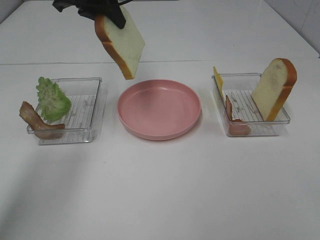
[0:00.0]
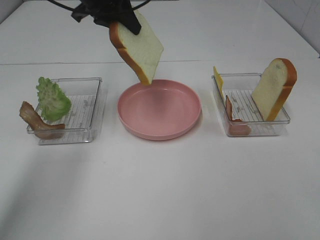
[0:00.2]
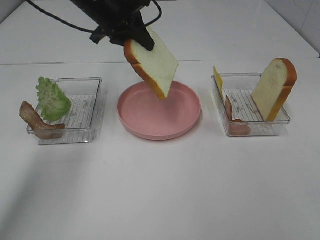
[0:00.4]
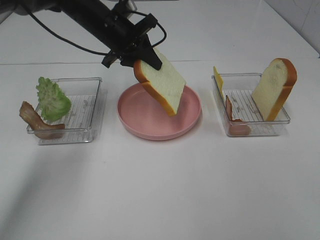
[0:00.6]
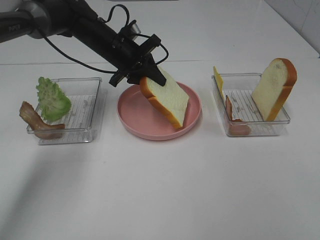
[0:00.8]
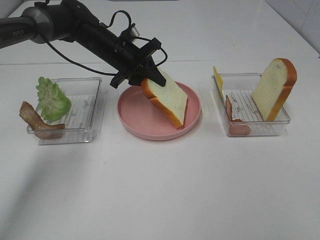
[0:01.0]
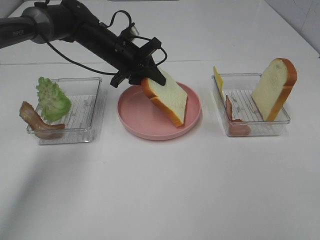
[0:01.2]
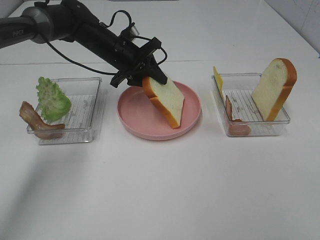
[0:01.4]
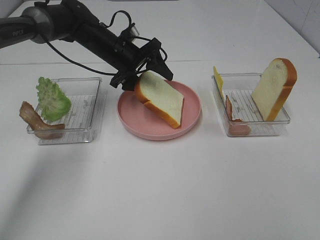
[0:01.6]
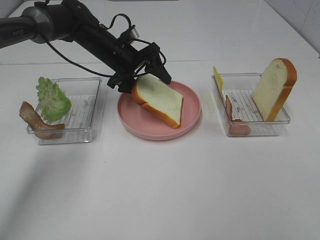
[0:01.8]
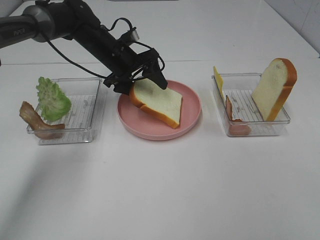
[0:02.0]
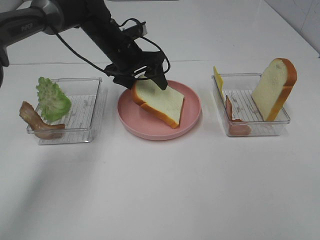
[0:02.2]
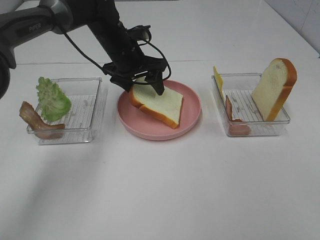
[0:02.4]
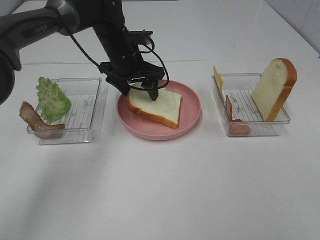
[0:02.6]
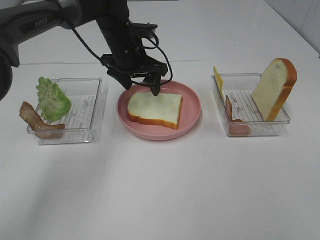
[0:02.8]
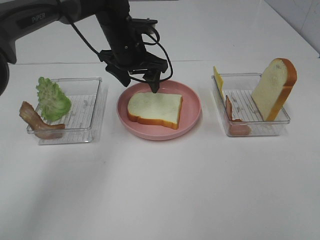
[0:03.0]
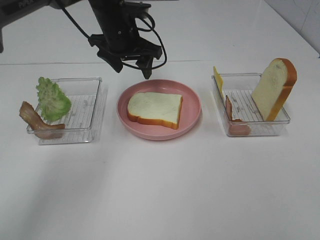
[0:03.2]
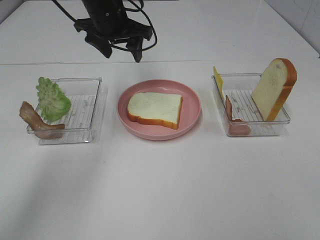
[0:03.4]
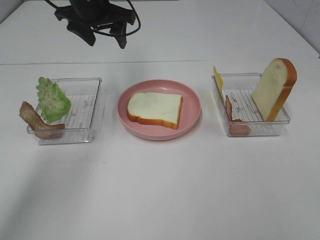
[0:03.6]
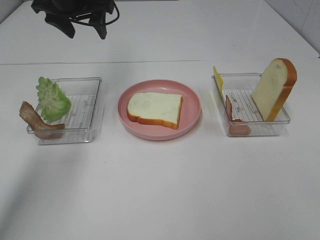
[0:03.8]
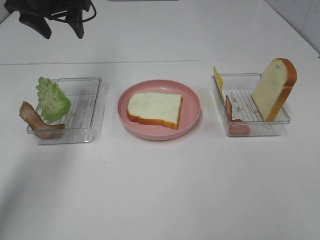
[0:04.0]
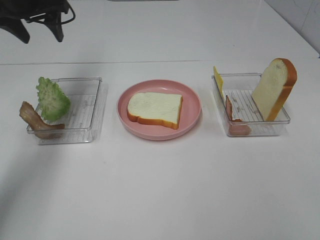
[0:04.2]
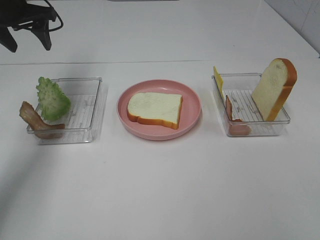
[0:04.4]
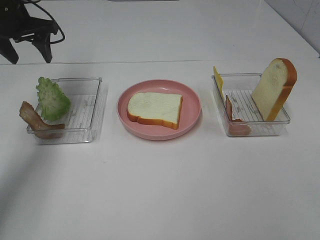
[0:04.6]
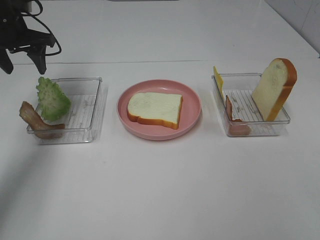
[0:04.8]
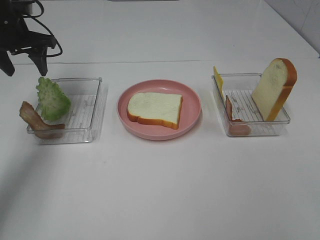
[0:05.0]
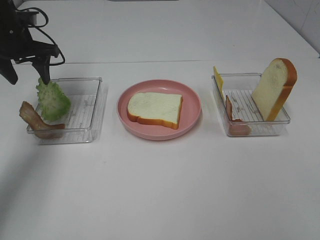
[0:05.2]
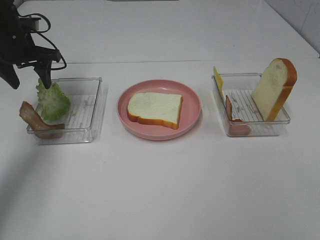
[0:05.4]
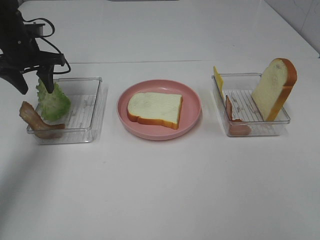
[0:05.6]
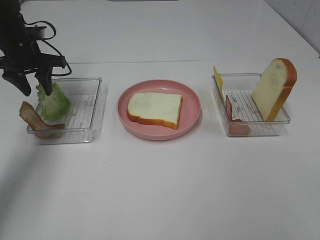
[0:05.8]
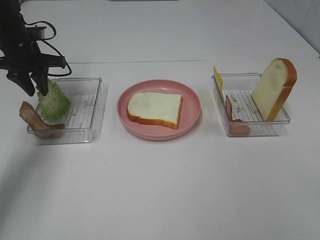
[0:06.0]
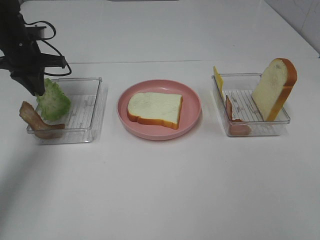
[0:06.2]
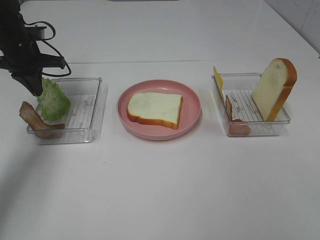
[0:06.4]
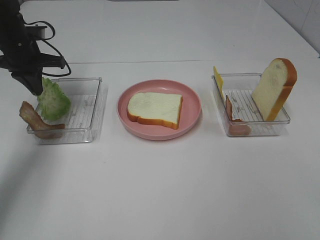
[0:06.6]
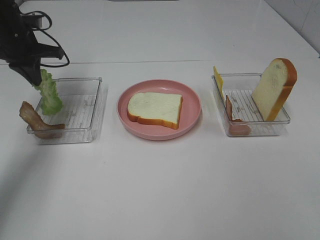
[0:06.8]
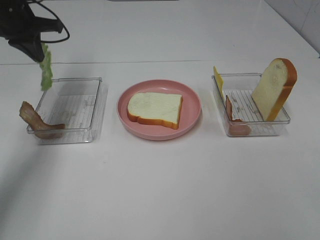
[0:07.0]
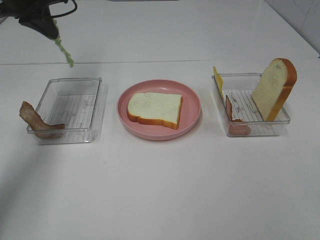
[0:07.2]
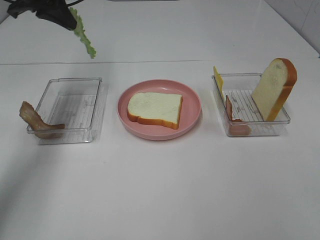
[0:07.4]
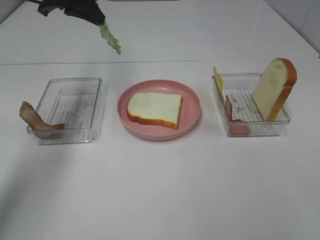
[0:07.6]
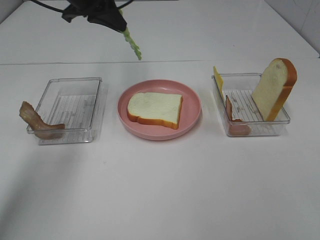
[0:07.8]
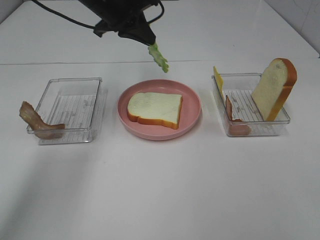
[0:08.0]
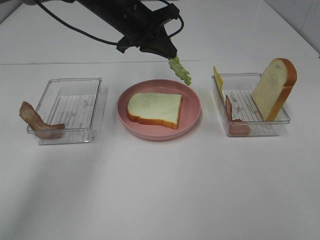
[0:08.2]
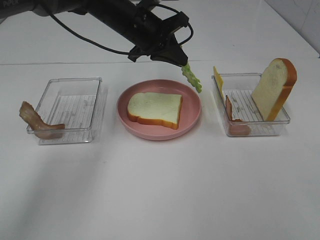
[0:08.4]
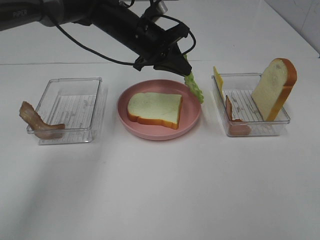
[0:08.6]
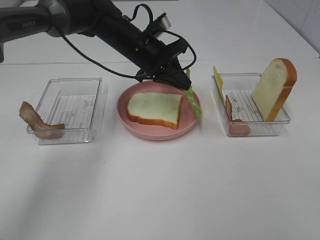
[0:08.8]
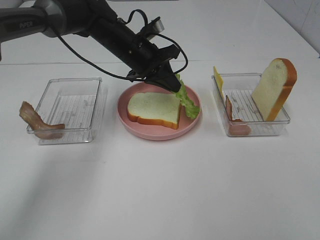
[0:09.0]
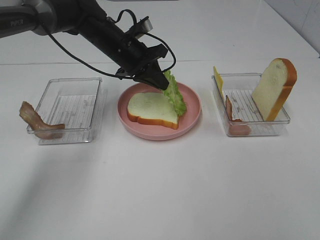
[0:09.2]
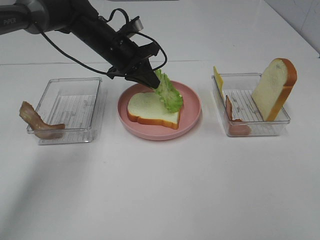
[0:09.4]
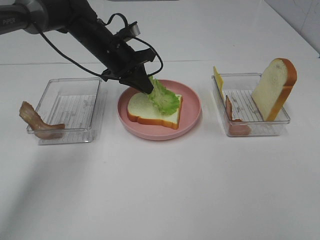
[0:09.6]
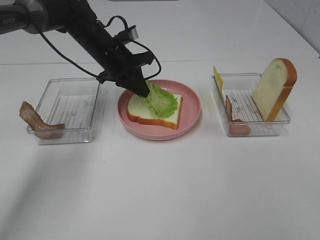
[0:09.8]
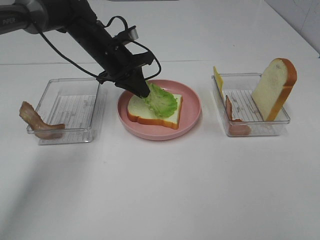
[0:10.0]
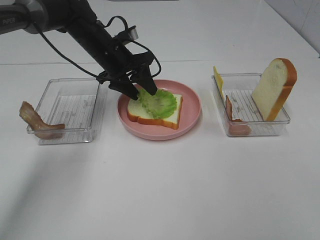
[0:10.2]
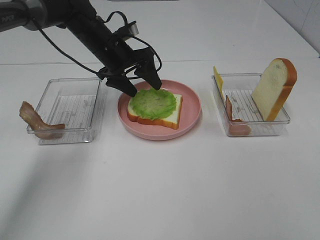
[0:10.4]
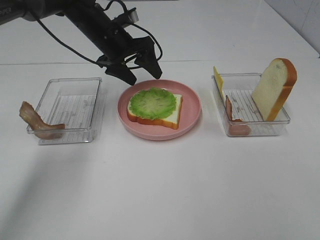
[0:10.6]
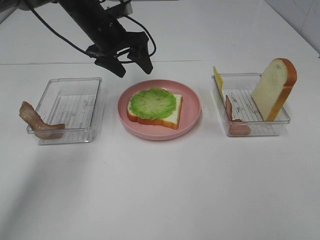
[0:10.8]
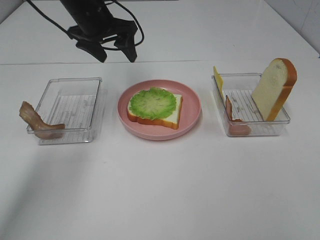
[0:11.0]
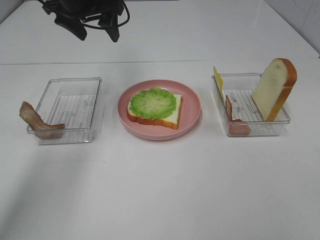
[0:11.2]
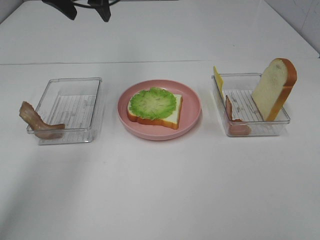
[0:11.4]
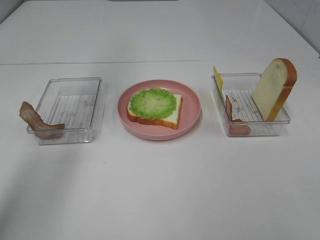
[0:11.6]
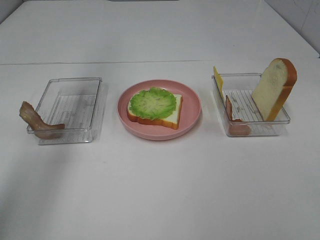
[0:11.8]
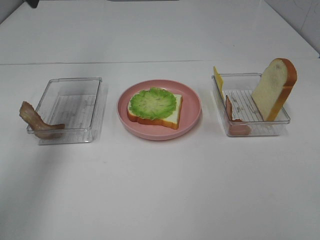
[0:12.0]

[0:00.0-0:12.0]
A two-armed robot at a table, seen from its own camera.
Task of the whole recording: Make sandwiches.
Step, 0.0 to 2.8 s: Left hand:place the bread slice on the plate.
Step, 3.0 to 6.8 s: Left hand:grab the lettuce slice.
Step, 7.0 to 10.8 s: Left hand:place the lettuce slice on the bread slice.
0.0 to 1.6 s: The left gripper travels downward by approximately 15 cm, and opens.
1.6 to 3.0 s: The left gripper ends up about 5 cm from where it was.
3.0 to 4.4 s: The left gripper goes some 20 cm to the left.
4.4 to 6.0 s: The left gripper is displaced downward by some 10 cm, and closes up.
6.0 to 7.6 s: The left gripper goes about 15 cm upward and to the right.
7.6 to 9.0 s: The left gripper shifts about 20 cm downward and to the right.
9.0 to 10.4 s: The left gripper moves approximately 5 cm, and opens up.
10.4 to 12.0 s: The left gripper is displaced upward and to the left by about 25 cm.

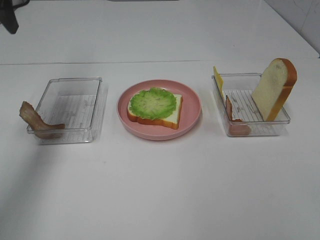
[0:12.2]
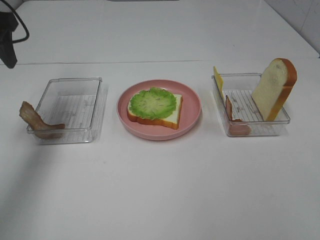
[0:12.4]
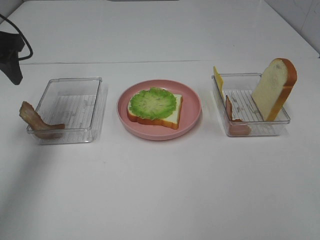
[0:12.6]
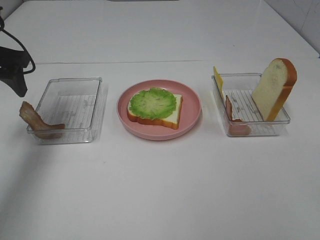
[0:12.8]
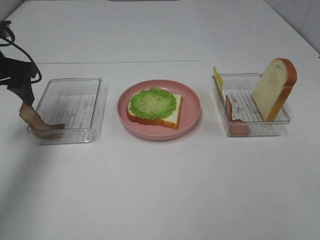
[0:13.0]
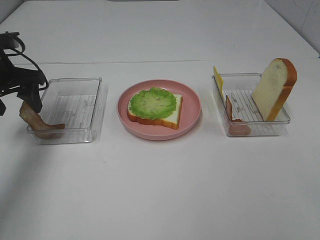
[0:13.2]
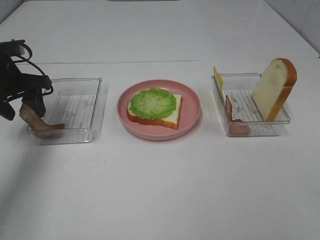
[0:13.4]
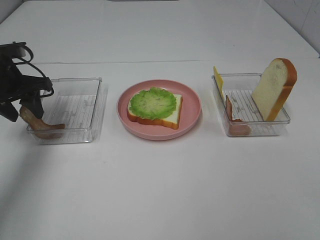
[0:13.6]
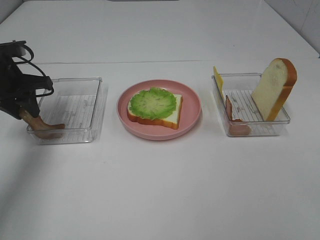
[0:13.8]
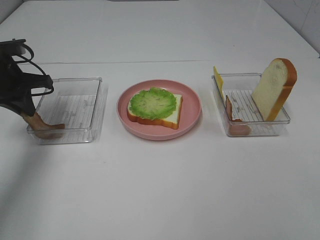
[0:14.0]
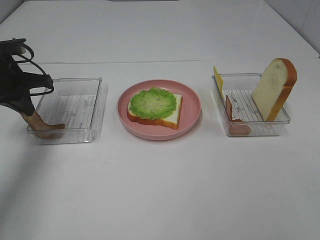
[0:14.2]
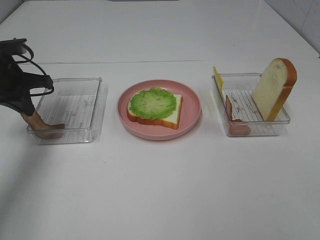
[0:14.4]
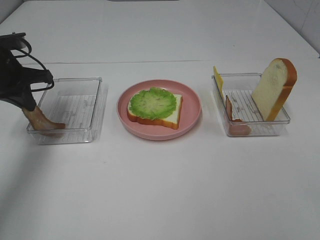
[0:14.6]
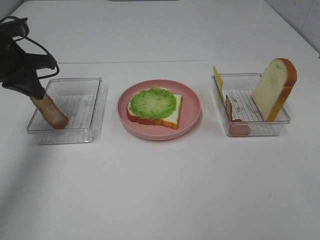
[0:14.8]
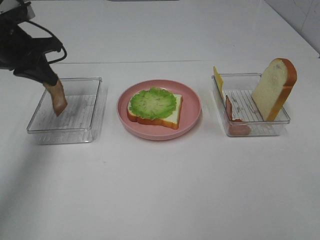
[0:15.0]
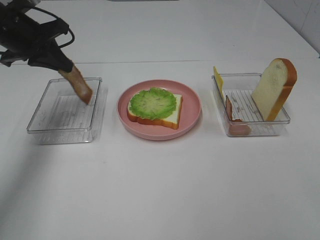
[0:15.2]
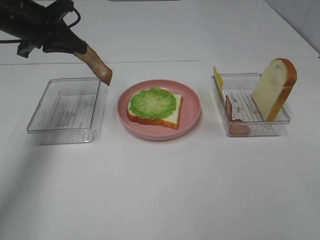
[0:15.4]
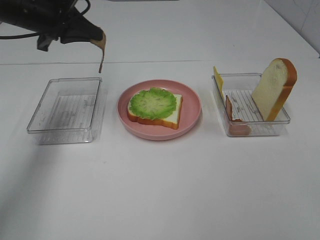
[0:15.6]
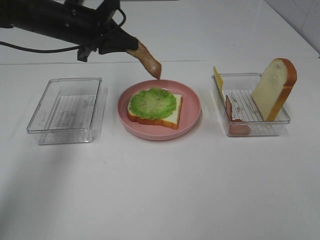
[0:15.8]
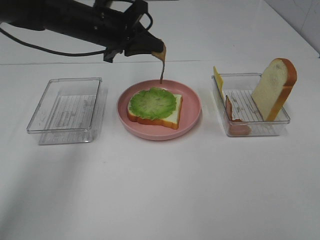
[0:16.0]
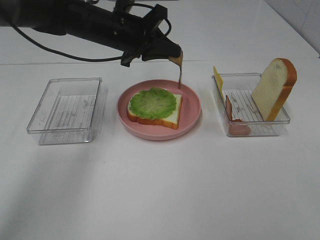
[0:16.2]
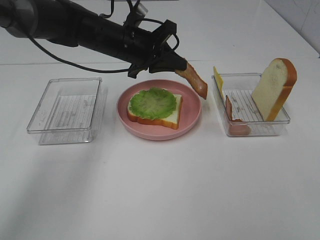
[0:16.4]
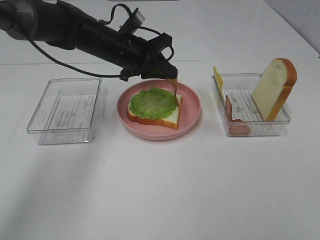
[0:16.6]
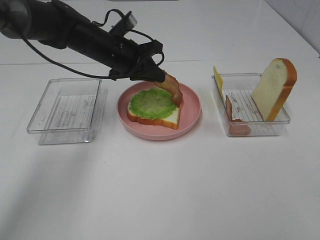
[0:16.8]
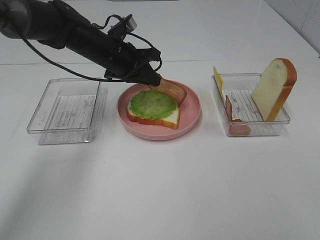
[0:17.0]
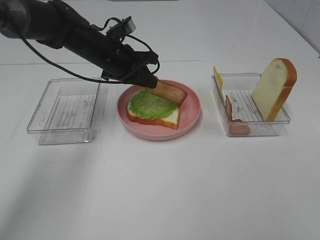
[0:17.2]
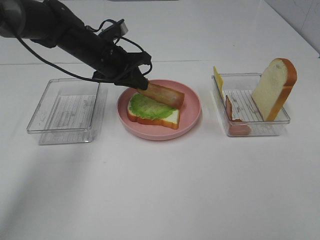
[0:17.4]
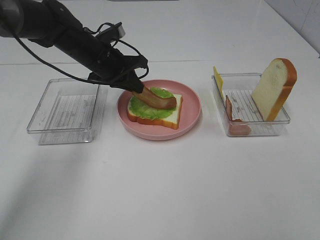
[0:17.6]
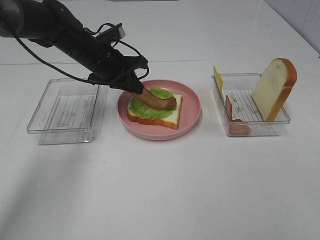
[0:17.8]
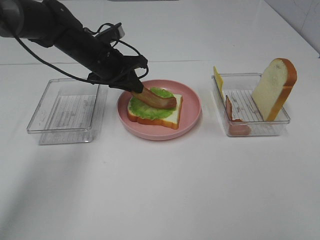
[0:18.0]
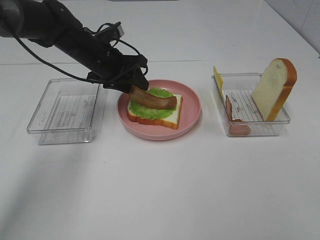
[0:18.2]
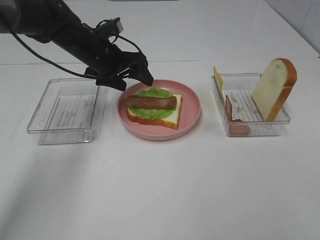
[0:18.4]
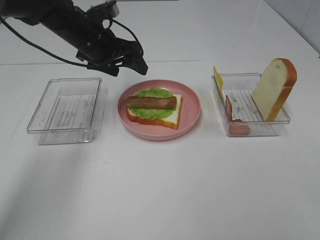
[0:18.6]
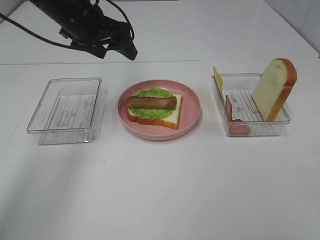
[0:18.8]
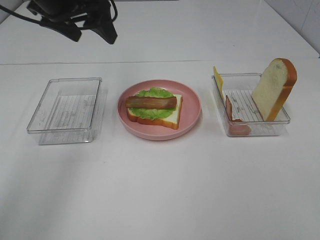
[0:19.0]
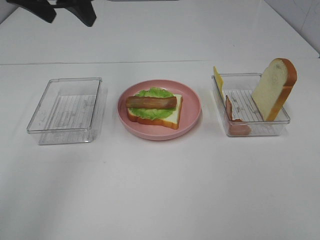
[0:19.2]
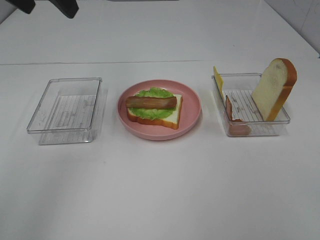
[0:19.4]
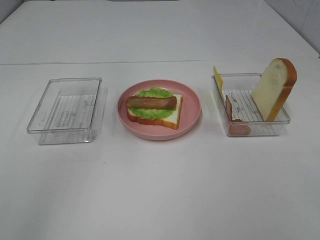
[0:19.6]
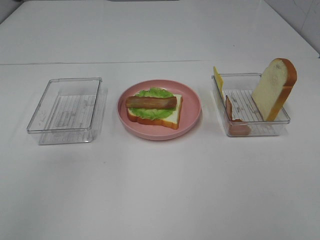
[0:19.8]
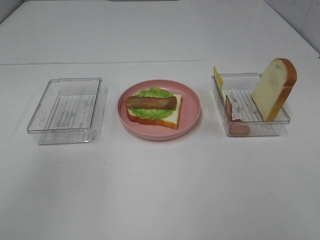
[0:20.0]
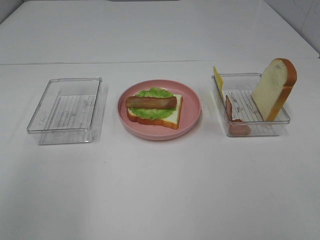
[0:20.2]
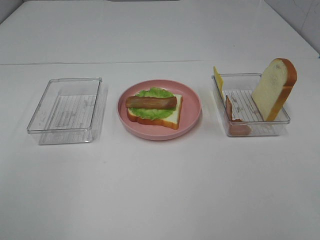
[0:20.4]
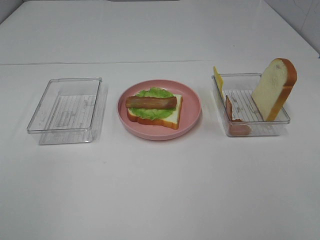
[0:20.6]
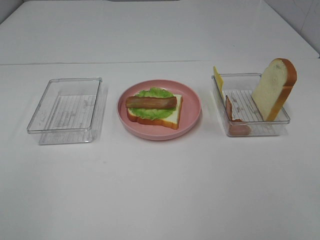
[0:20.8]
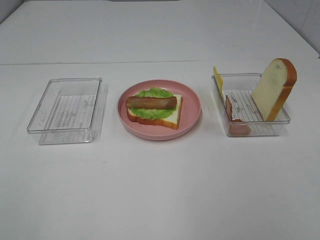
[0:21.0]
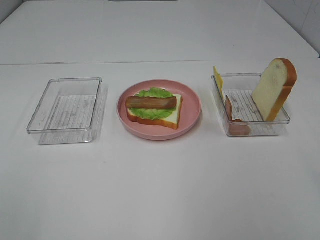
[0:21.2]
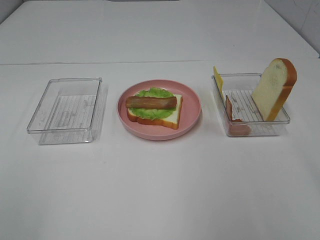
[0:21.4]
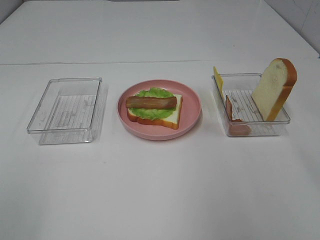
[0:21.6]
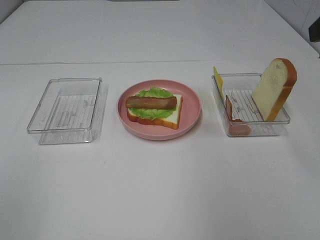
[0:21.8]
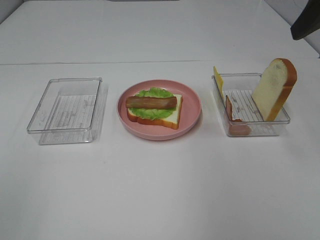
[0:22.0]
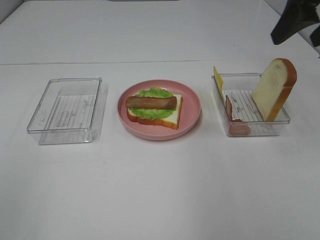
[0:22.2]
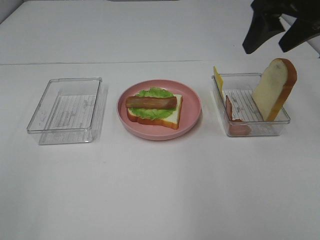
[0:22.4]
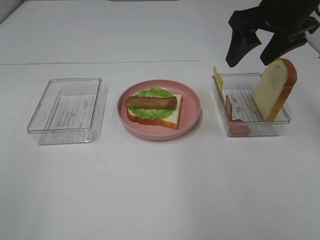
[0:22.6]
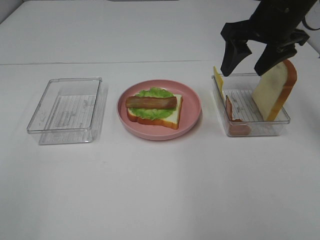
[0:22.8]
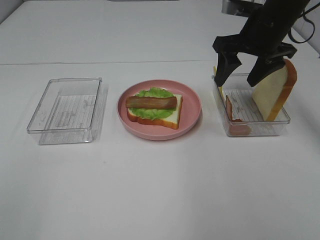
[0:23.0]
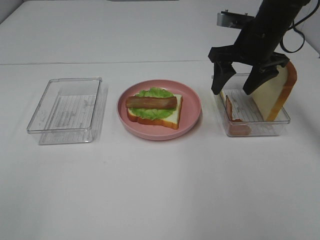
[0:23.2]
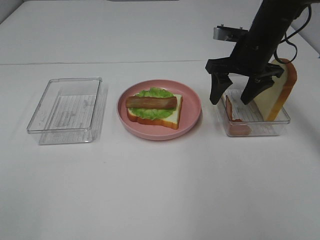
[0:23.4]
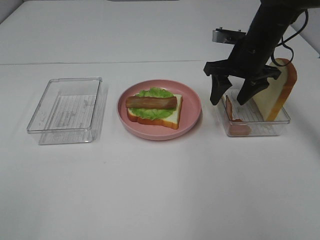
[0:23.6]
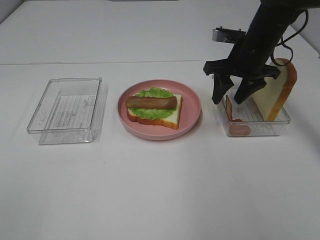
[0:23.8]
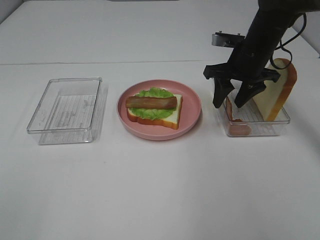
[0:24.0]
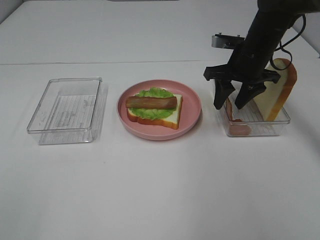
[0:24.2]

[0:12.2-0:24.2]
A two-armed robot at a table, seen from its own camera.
Task of the whole recording: Make sandwiches.
Step, 12.2 to 14.4 s: Left hand:grab the bacon.
Step, 14.6 to 18.4 s: Left hand:place bacon on lettuce slice.
12.2 to 13.8 s: The left gripper goes about 15 cm downward, and closes its fingers.
13.8 to 15.2 s: The left gripper moves upward, approximately 5 cm, and closes up.
15.2 to 16.6 s: The left gripper heads to the right and downward, covering roughly 20 cm.
16.6 to 18.2 s: The left gripper opens its fingers.
18.2 to 19.8 s: The left gripper moves upward and backward, about 35 cm, and opens.
19.8 to 21.2 s: The left gripper shifts some 30 cm backward and downward.
21.2 to 22.6 s: The right gripper is displaced forward by about 30 cm.
22.6 to 24.2 s: The right gripper heads downward and forward, covering about 15 cm.
